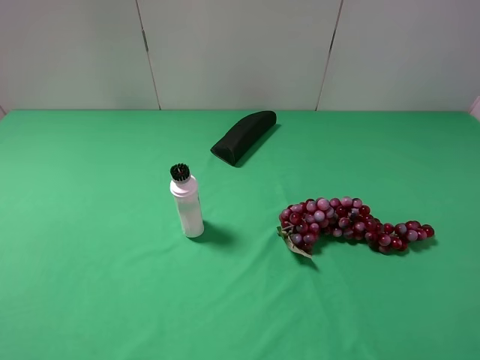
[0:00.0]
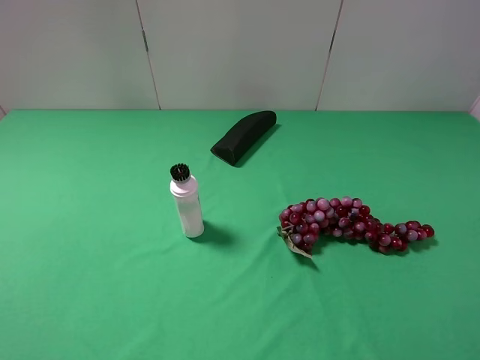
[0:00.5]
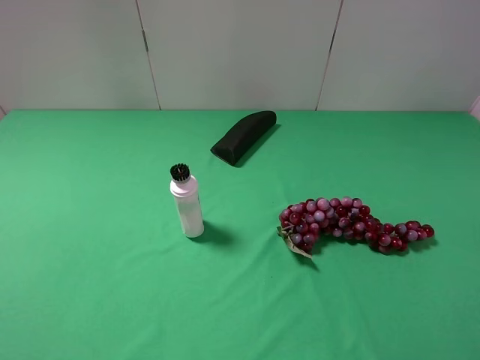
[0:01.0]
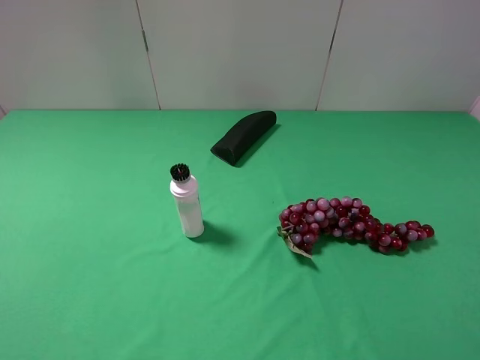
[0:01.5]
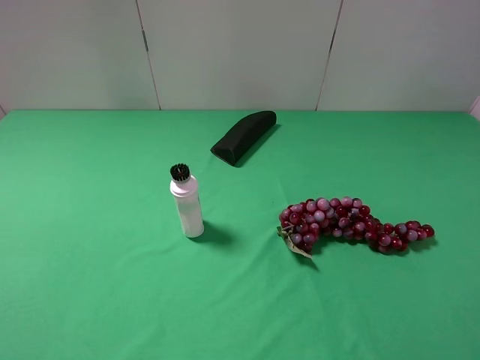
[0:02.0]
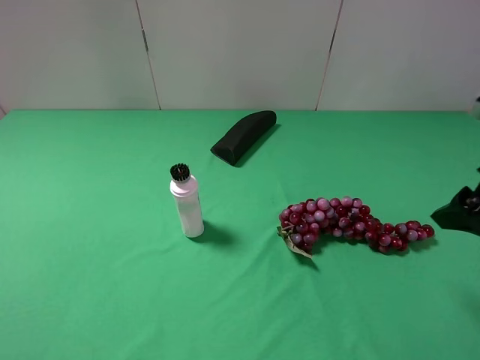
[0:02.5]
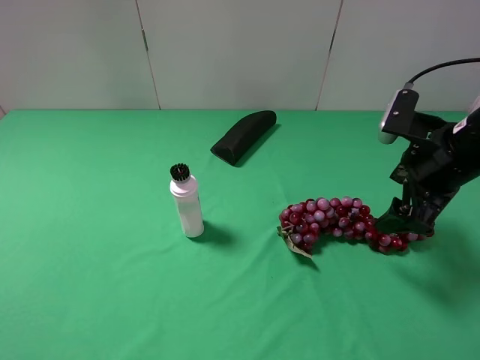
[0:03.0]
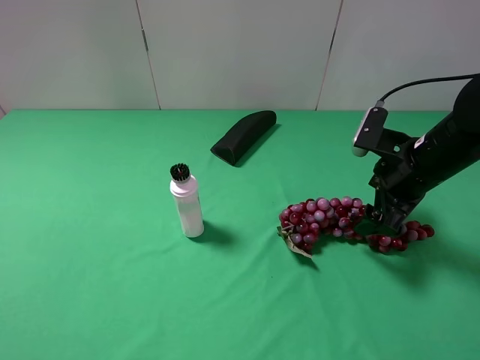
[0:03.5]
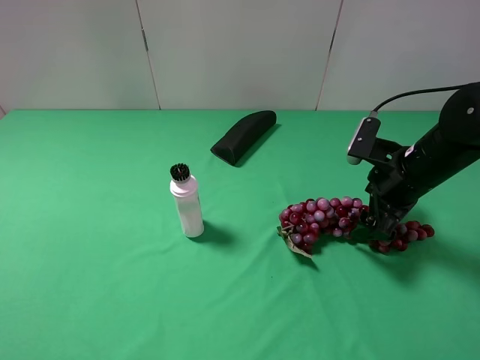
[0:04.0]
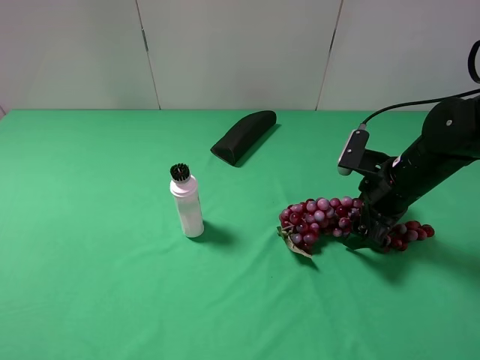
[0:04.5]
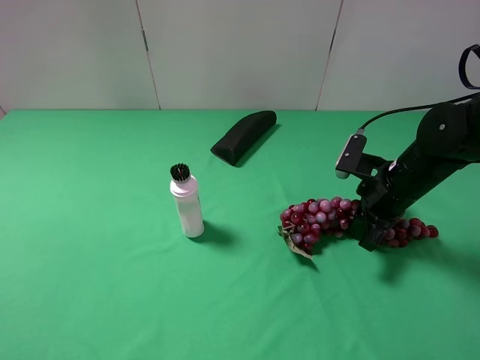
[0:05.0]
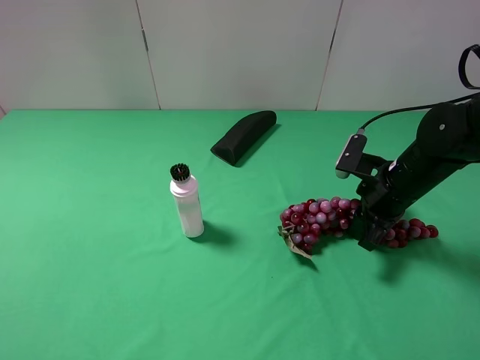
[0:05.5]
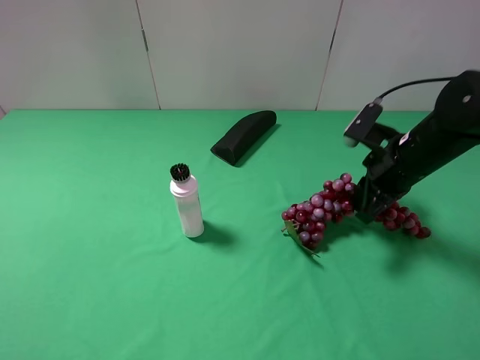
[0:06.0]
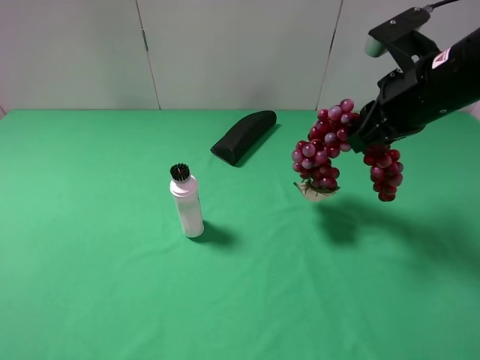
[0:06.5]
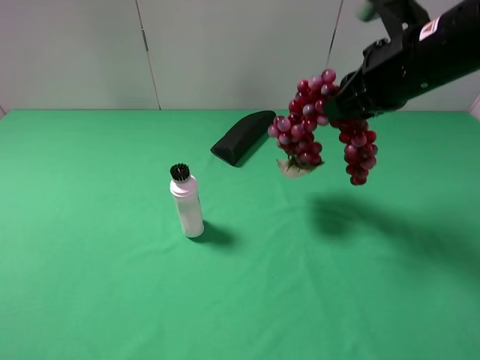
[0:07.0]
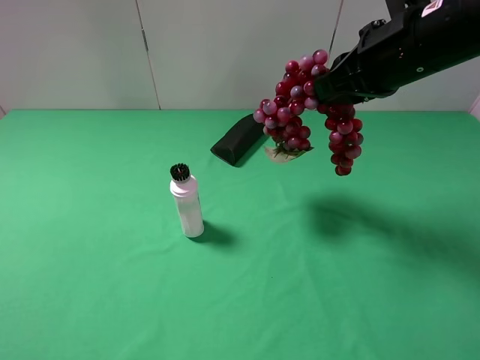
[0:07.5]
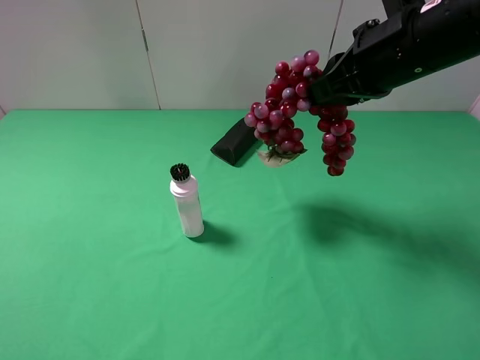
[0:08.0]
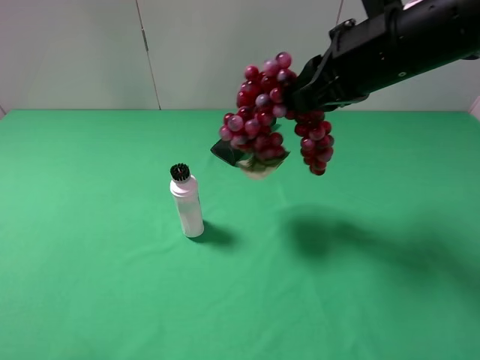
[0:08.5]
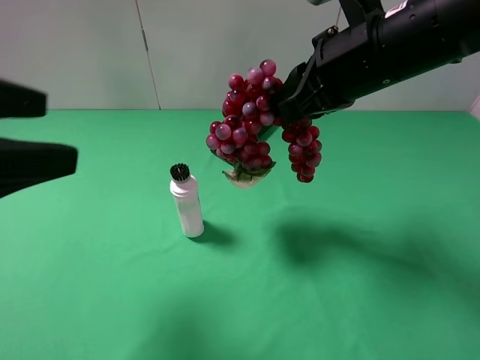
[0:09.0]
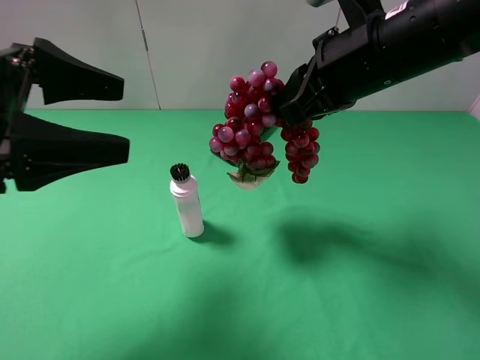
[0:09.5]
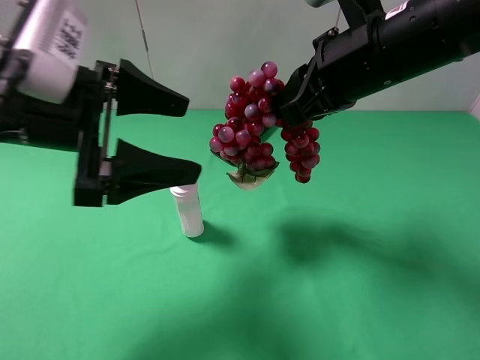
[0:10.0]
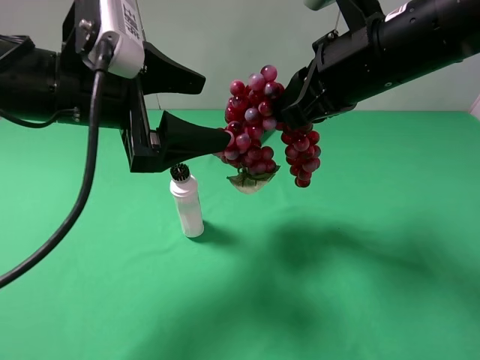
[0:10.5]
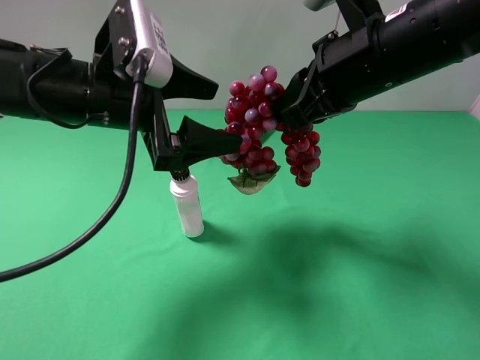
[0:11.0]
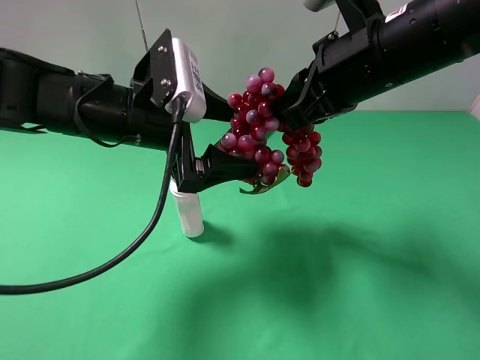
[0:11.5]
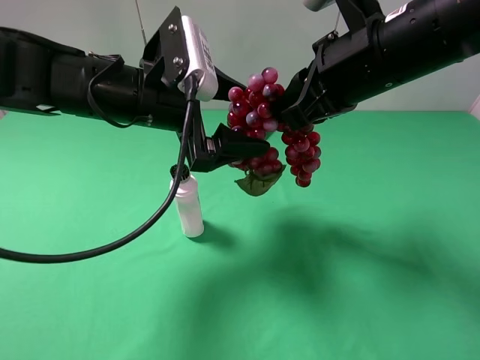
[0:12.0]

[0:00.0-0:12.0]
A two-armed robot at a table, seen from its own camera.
Task of the whole recording: use the right gripper to pick up the item and transfer it from the right gripper to the left gripper.
Step, 0:00.0 to 0:05.0: Use the right gripper to grab the grape on the right side of the table.
0:02.0 to 0:04.0: The right gripper heads forward and downward, covering some 30 cm.
0:04.0 to 0:06.0: The right gripper closes.
0:06.0 to 0:08.0: The right gripper is displaced upward and to the left by roughly 15 cm.
0:08.0 to 0:10.0: The left gripper shifts approximately 25 cm forward and to the right.
0:10.0 to 0:12.0: The left gripper heads forward and to the right, covering about 10 cm.

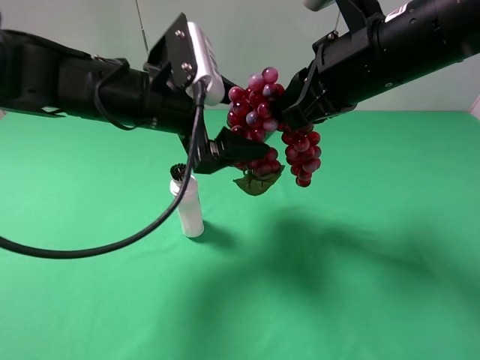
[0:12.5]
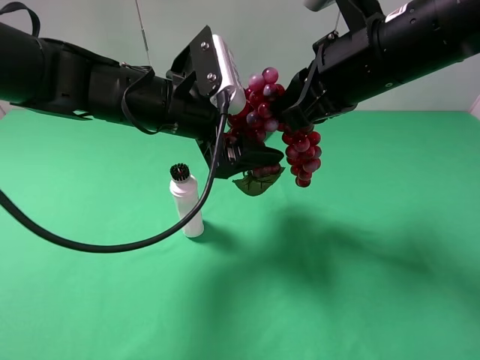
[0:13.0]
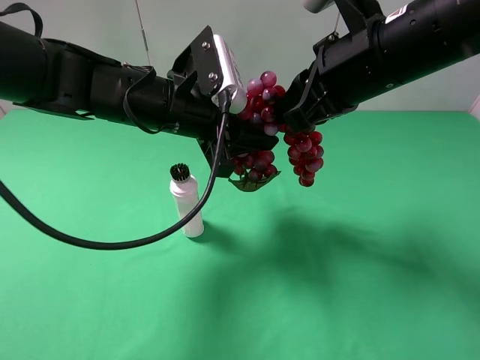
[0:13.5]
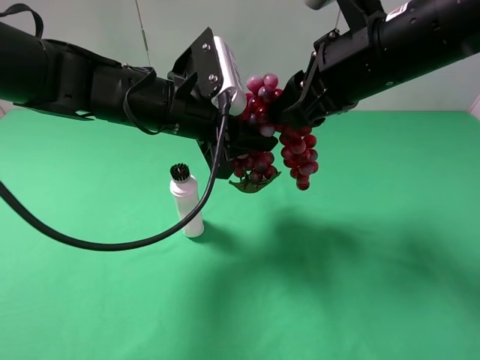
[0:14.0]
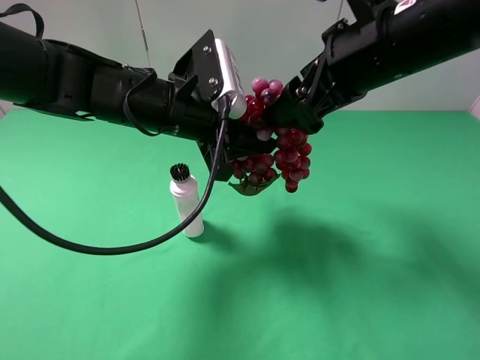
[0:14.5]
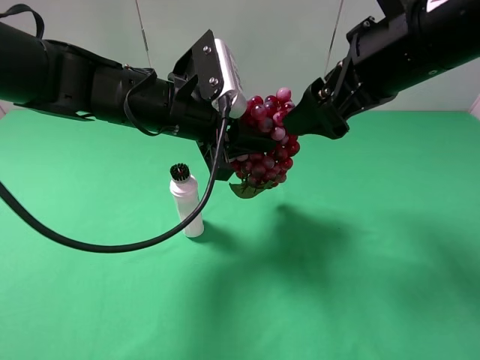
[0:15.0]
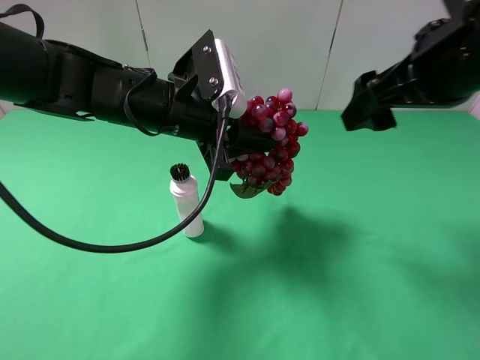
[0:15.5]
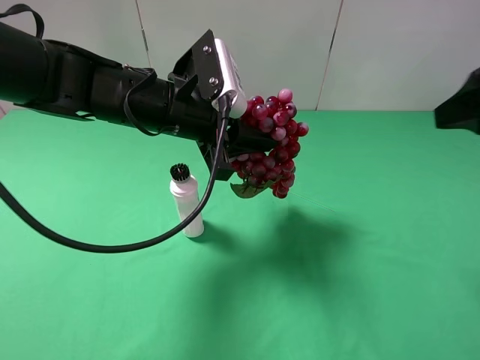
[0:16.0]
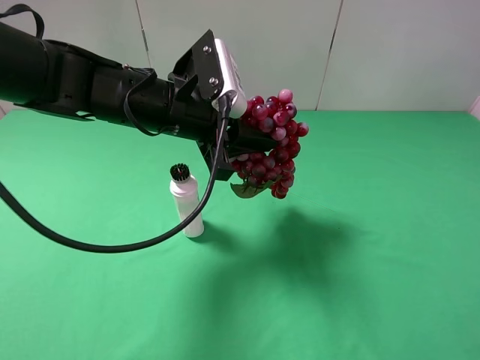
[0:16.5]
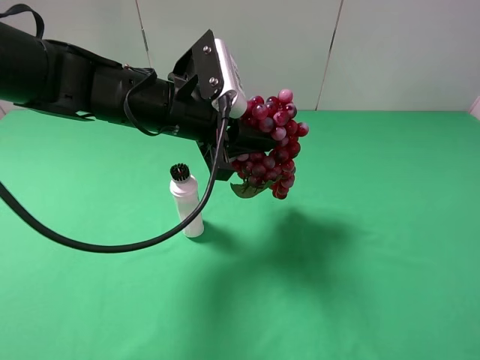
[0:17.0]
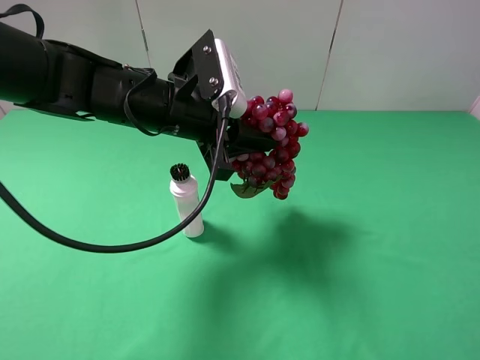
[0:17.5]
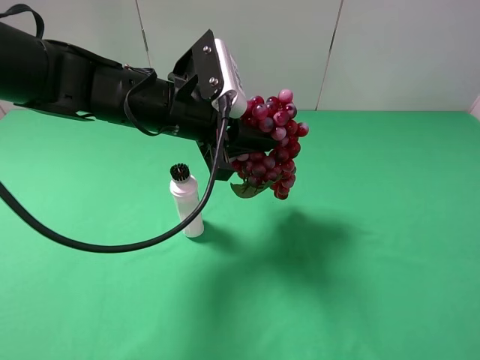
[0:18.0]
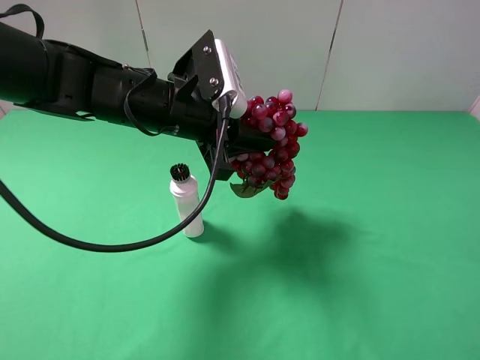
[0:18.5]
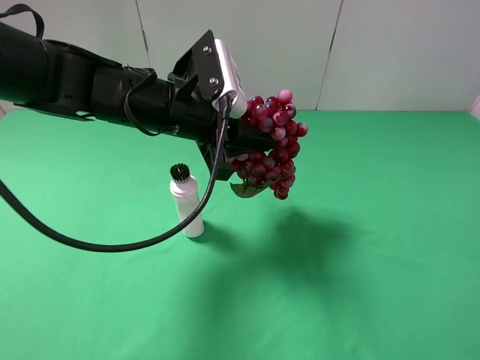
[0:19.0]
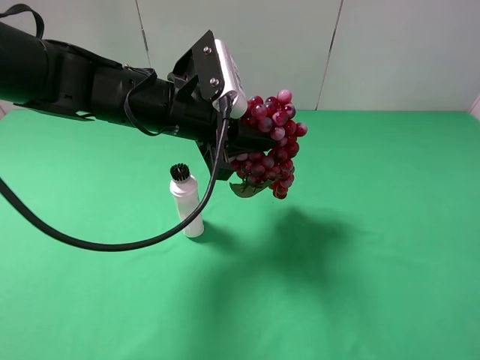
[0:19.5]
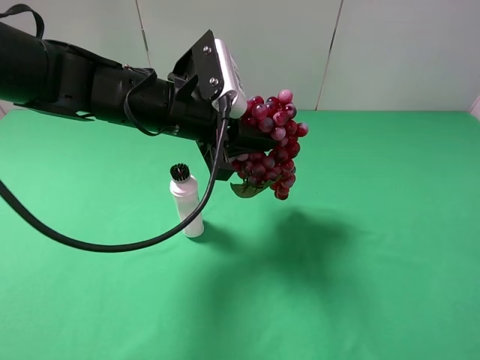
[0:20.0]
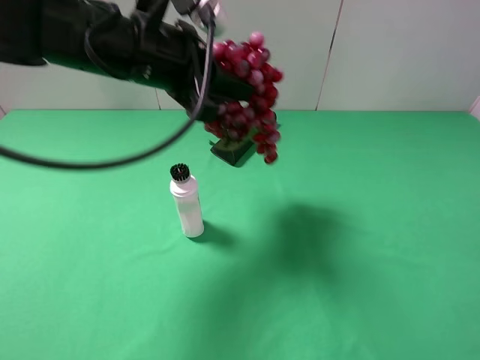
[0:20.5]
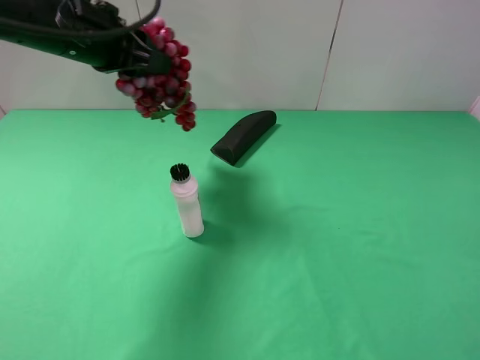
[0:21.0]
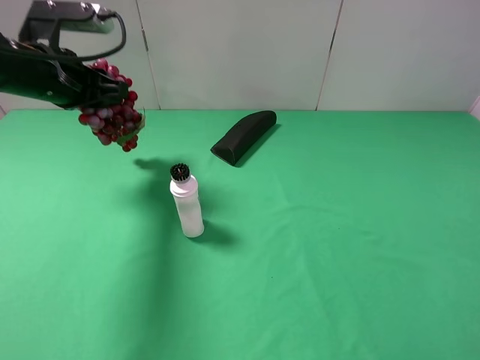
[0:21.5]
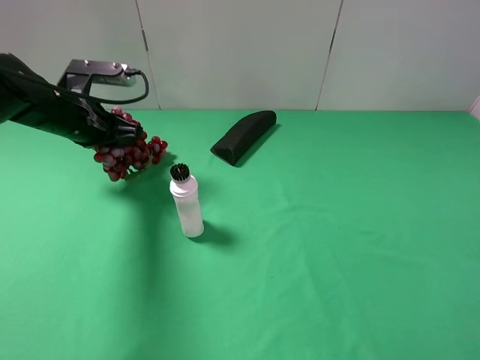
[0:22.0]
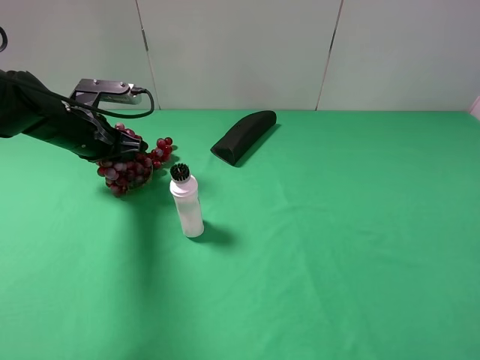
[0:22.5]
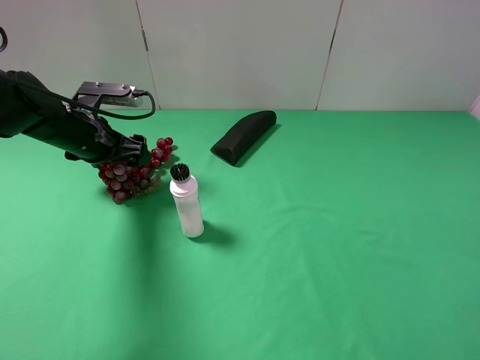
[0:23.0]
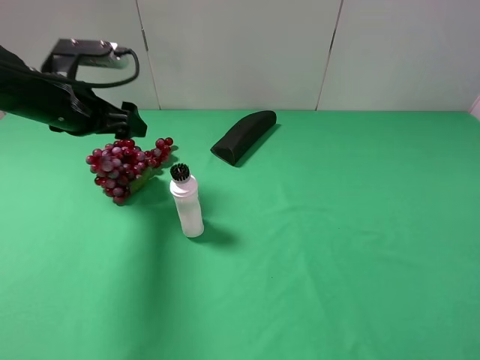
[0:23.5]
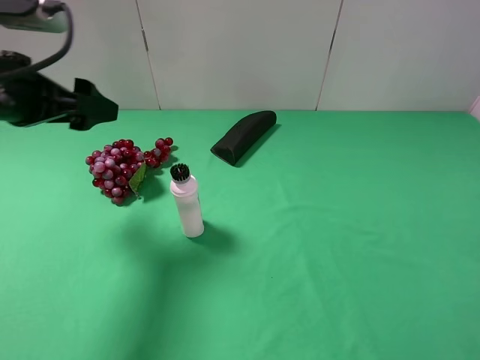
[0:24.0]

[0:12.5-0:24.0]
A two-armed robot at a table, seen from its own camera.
Task of the whole recording: use the right gripper to pick up the item and transfer it from the right gripper to the left gripper.
Step, 0:12.5 to 0:14.5: Pass the grape to the left gripper.
0:12.5 to 0:14.5: The right gripper opens up. The left gripper closes.
0:14.5 to 0:16.5: The right gripper shifts some 25 cm backward and to the right.
0:20.0 to 0:22.0: The left gripper travels to the left by some 15 cm.
0:22.0 to 0:24.0: The left gripper moves upward and backward, about 15 cm, and opens up.

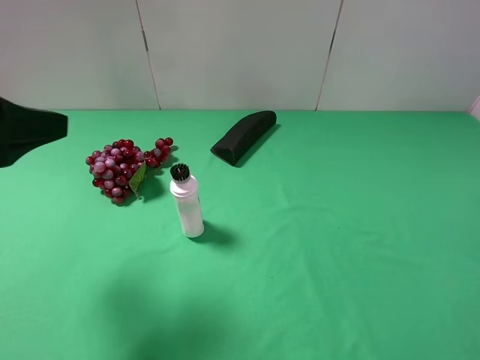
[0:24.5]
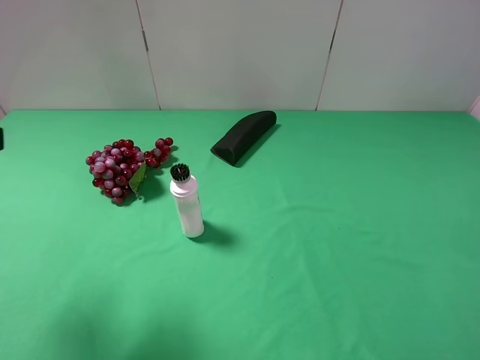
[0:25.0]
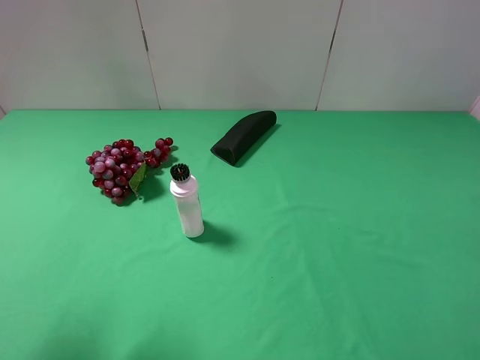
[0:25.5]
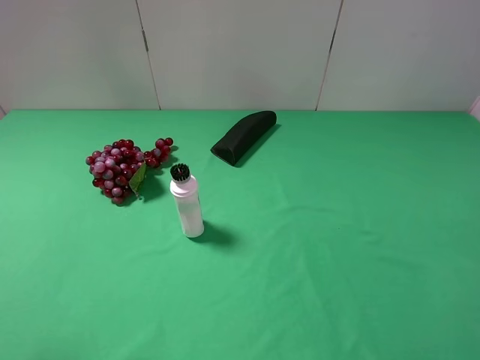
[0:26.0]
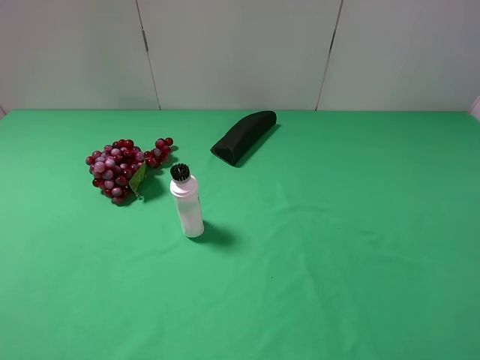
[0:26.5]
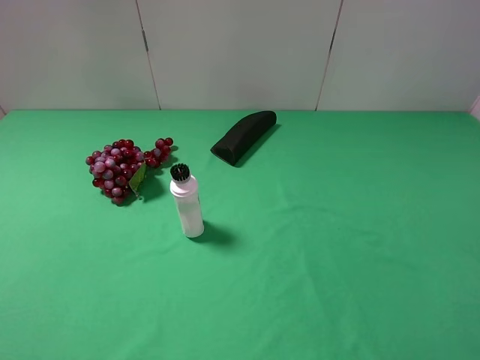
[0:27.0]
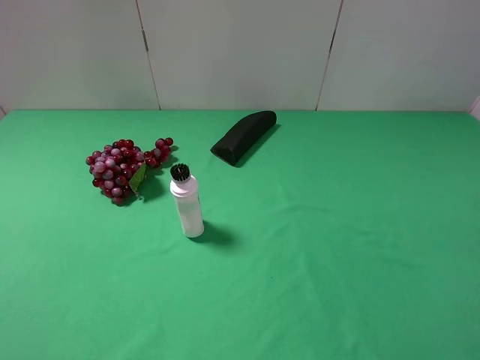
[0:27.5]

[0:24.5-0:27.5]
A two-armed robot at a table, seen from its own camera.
Task of the whole recording: use the right gripper to pick up the item and transfer it from the right gripper to the left gripper.
0:24.5 to 0:26.0: The left gripper heads backward, covering about 10 cm.
